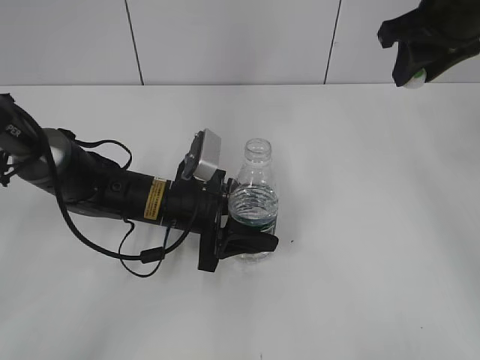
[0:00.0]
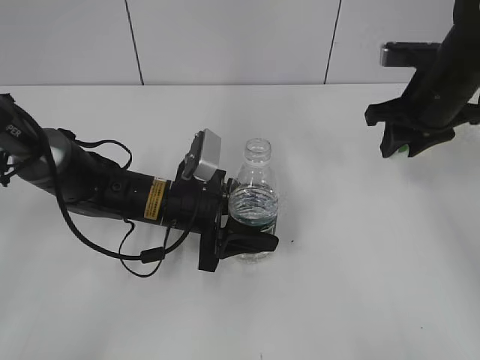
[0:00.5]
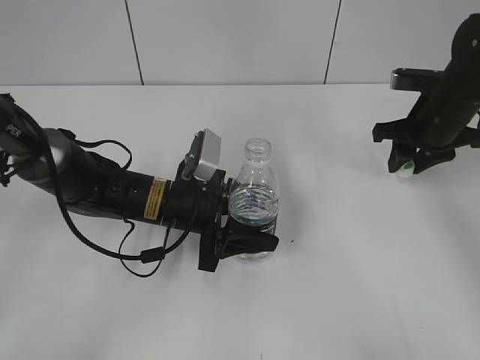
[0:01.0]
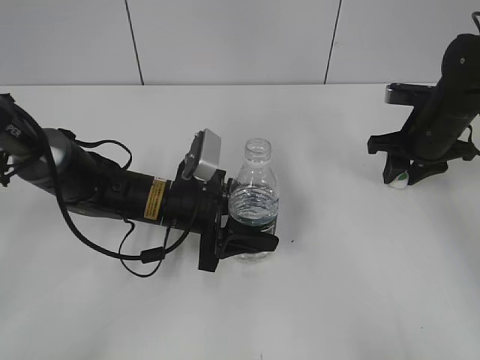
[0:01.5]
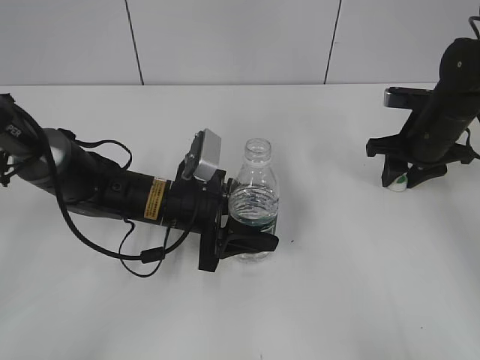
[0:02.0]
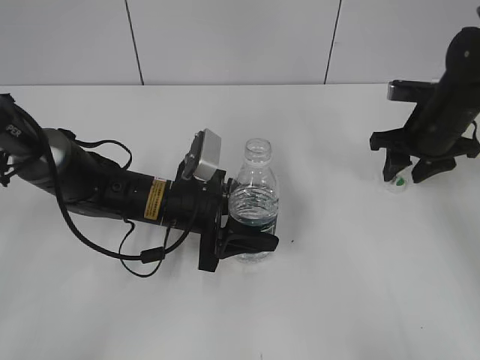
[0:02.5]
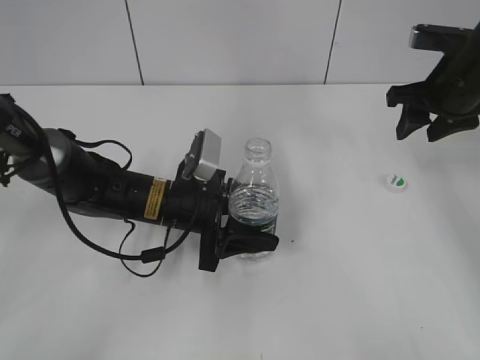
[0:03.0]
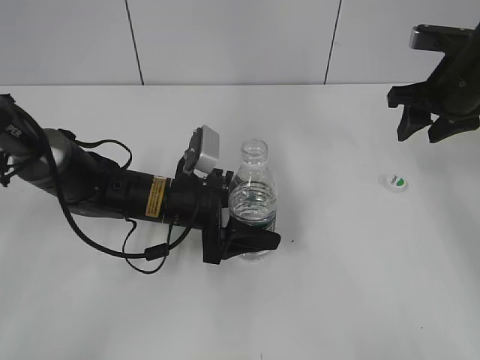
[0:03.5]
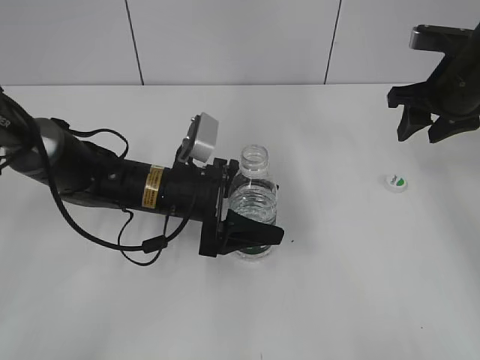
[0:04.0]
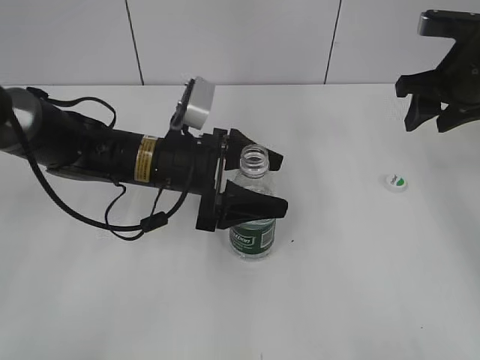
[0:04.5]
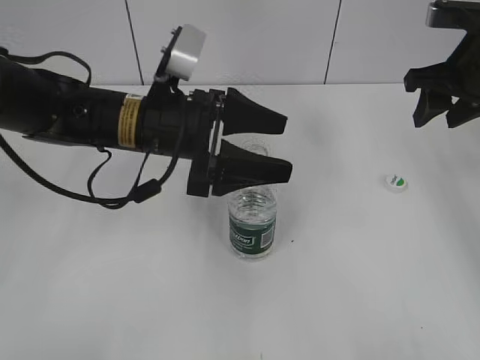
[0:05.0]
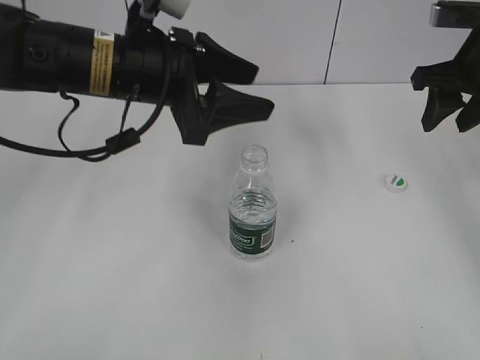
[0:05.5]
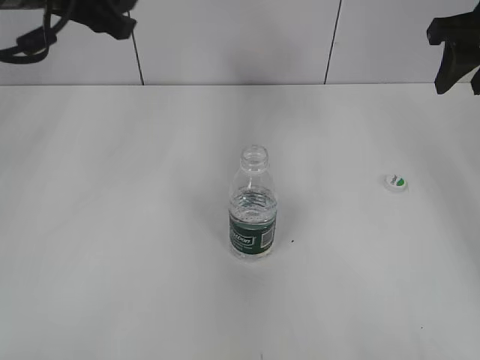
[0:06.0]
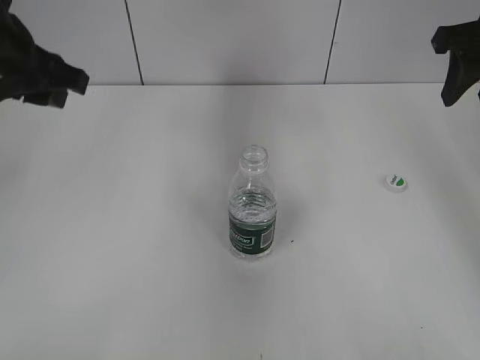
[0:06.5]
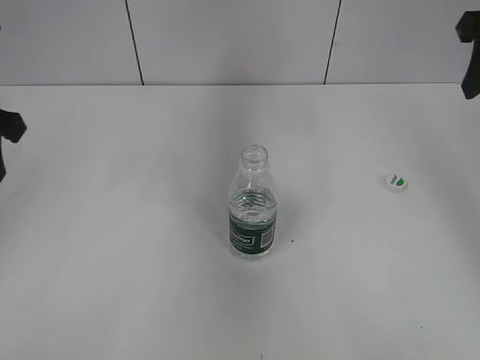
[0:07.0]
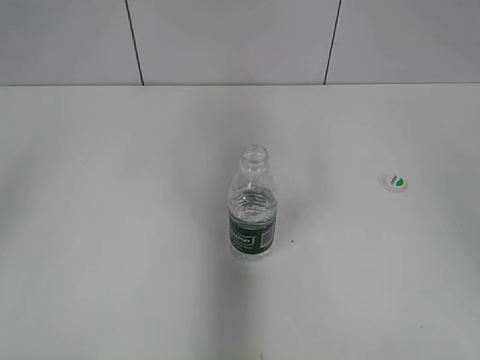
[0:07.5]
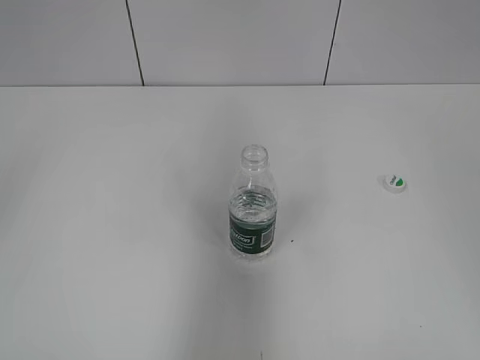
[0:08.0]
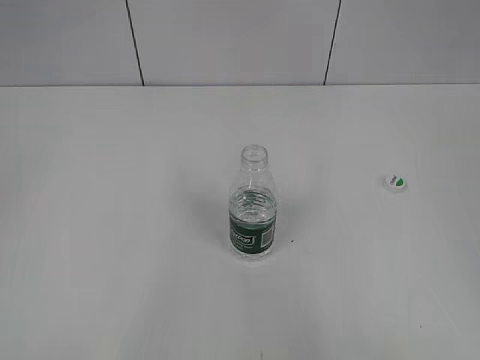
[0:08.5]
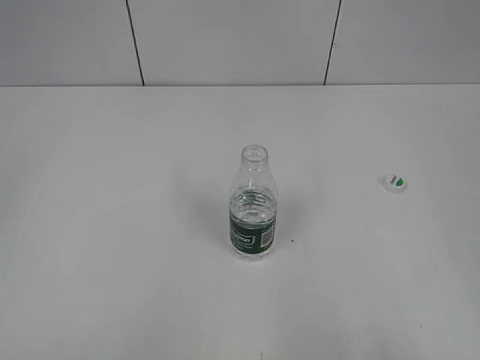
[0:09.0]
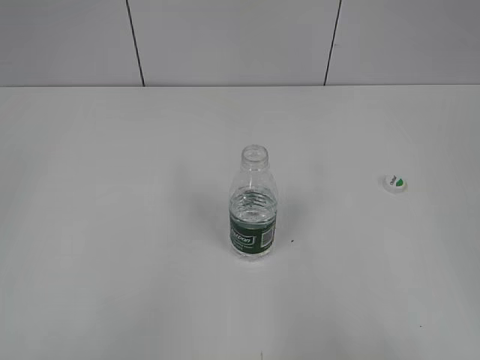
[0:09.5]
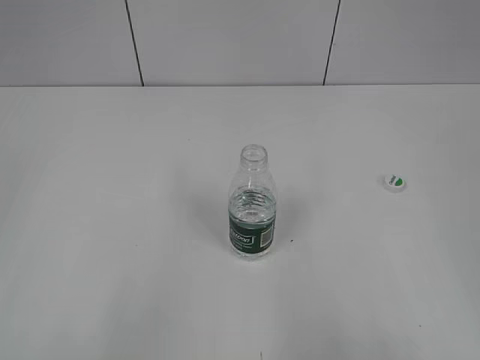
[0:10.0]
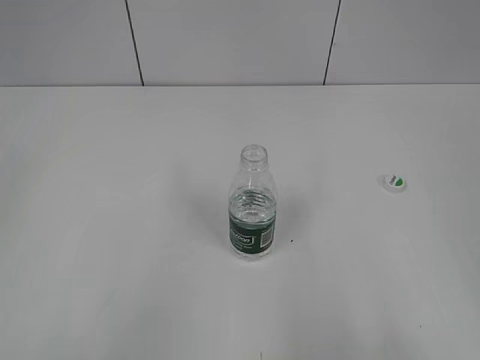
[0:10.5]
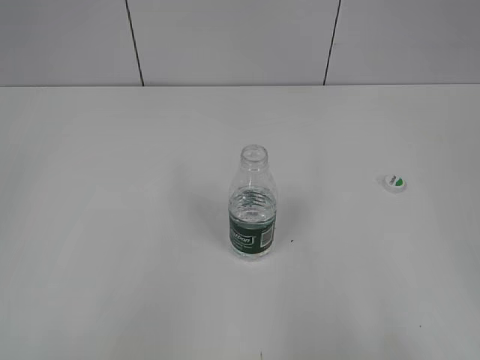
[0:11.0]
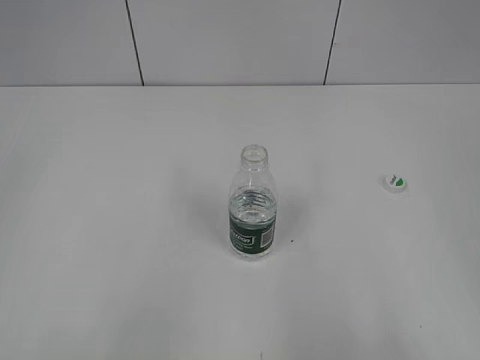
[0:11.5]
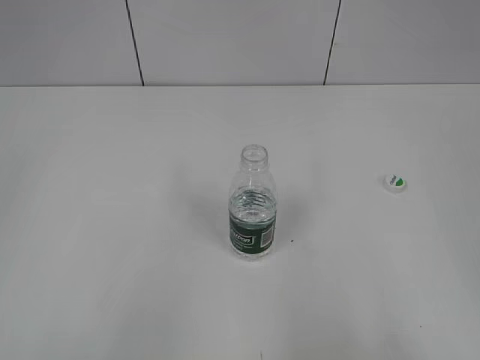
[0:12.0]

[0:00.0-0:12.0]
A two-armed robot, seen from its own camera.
Step, 0:00.0 to 0:02.0: Place the bottle cap on the table with the right gripper.
Step, 0:03.0 to 0:04.5: Place the bottle on the table with the left gripper.
0:00.0 to 0:02.0: The right gripper moves downward, some 20 cm.
0:02.0 to 0:04.0: The left gripper opens up; the right gripper shifts roughly 10 cm upward, and opens its fingers.
0:04.0 to 0:06.0: The left gripper goes approximately 25 cm upward, and closes its fingers, while the right gripper shifts roughly 10 cm upward.
0:06.0 to 0:08.0: The right gripper travels backward by approximately 30 cm; the left gripper heads backward and to the left, covering roughly 25 cm.
0:08.0 to 0:10.0: The right gripper is displaced downward and backward by some 15 cm; the left gripper heads backward and downward, covering some 15 cm.
